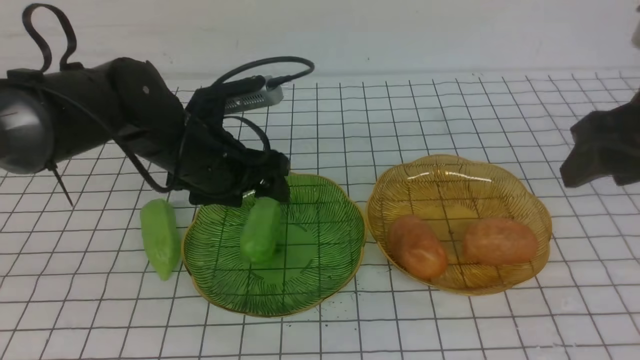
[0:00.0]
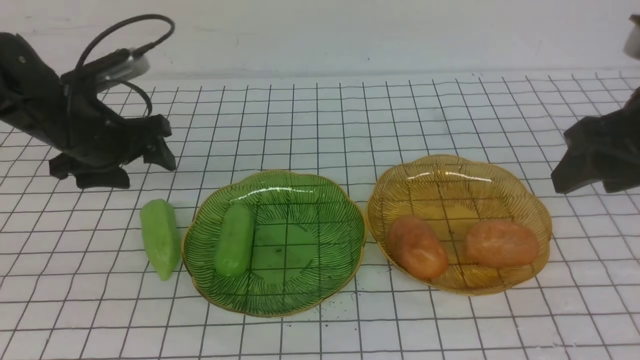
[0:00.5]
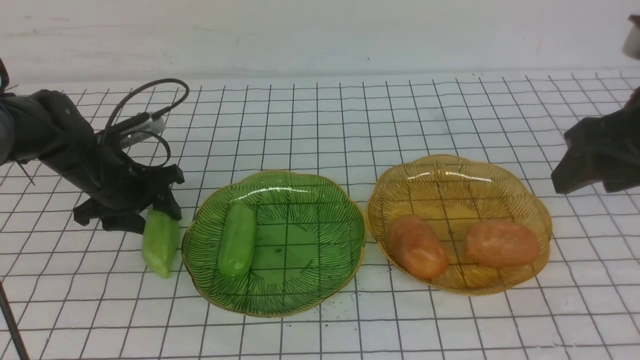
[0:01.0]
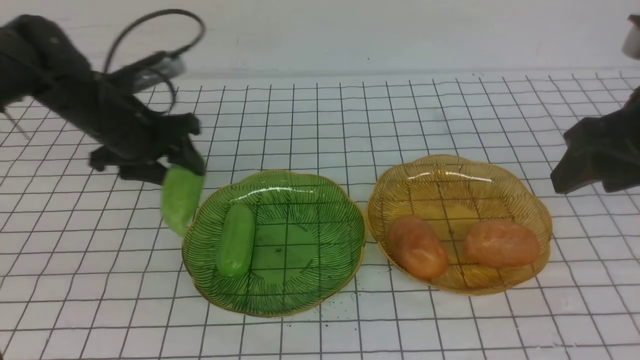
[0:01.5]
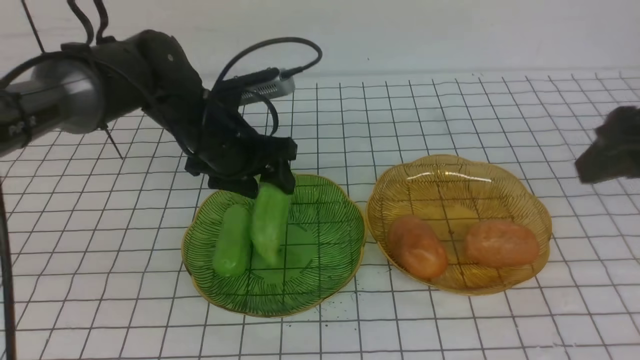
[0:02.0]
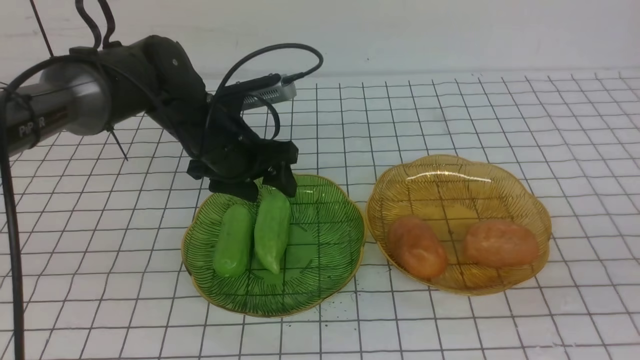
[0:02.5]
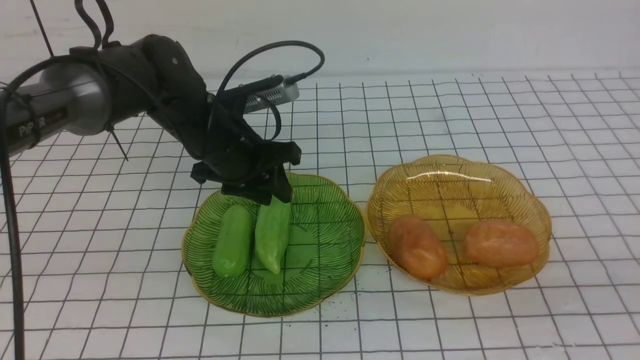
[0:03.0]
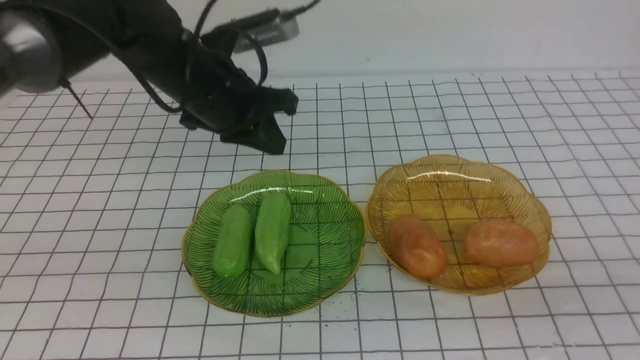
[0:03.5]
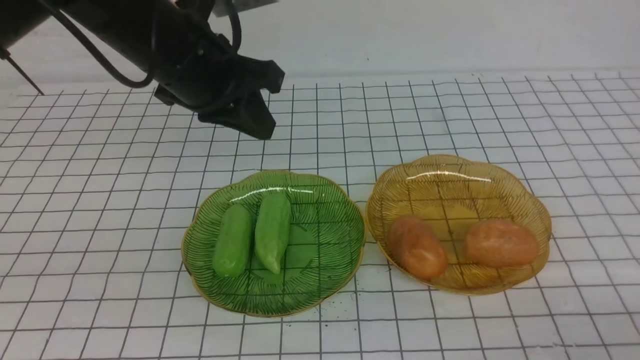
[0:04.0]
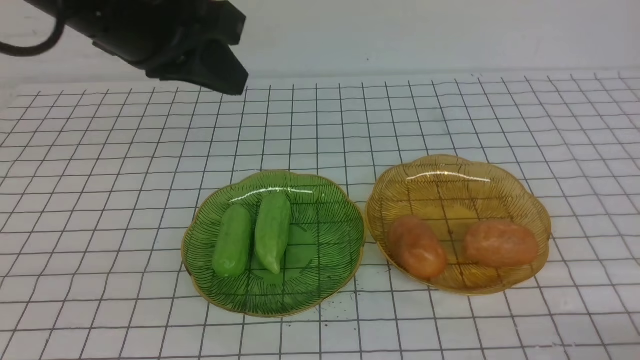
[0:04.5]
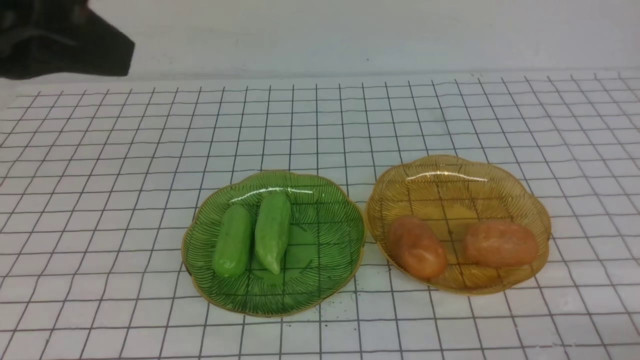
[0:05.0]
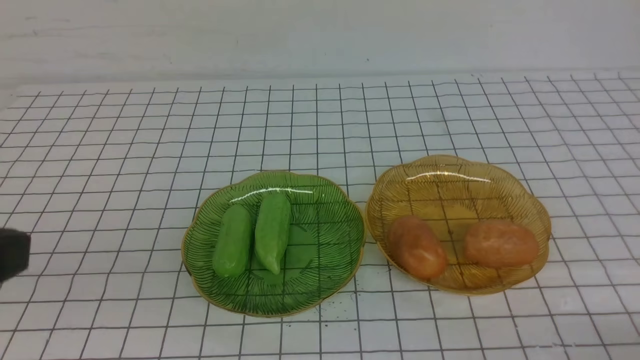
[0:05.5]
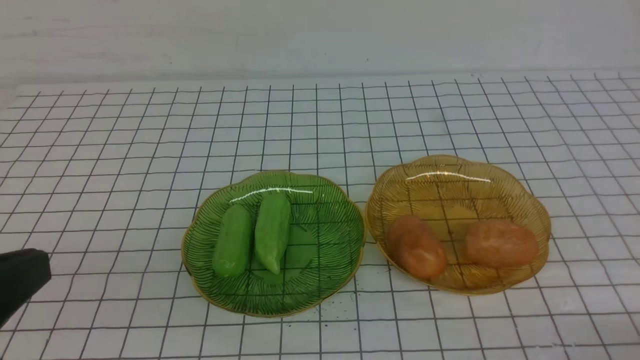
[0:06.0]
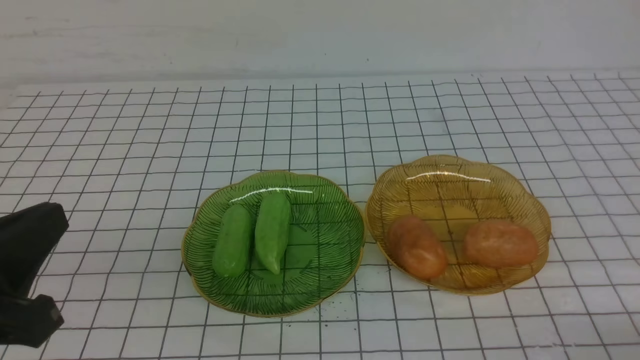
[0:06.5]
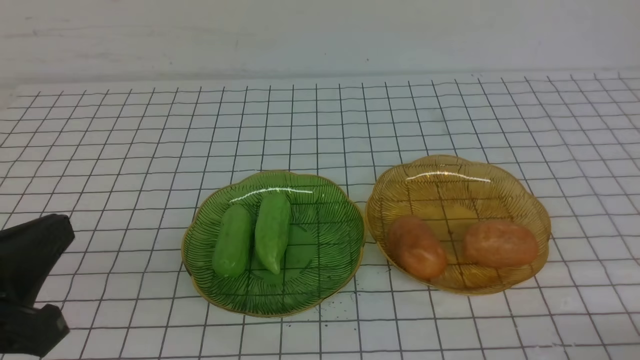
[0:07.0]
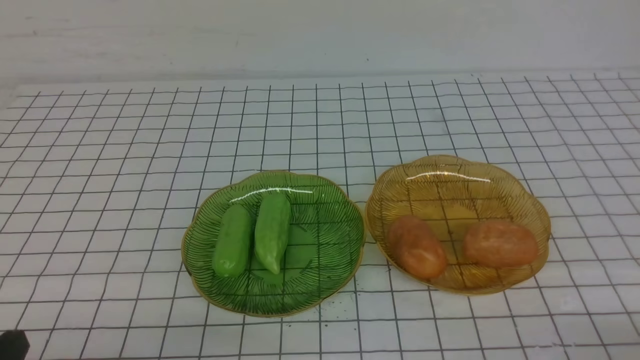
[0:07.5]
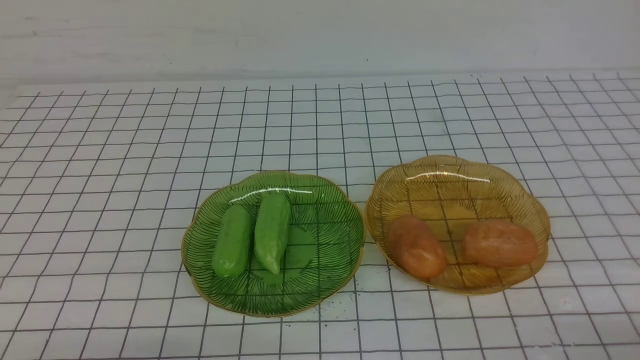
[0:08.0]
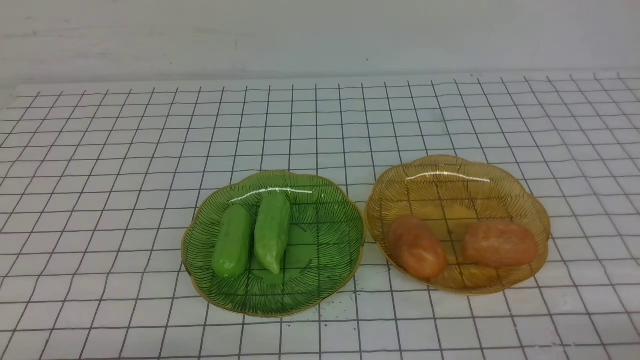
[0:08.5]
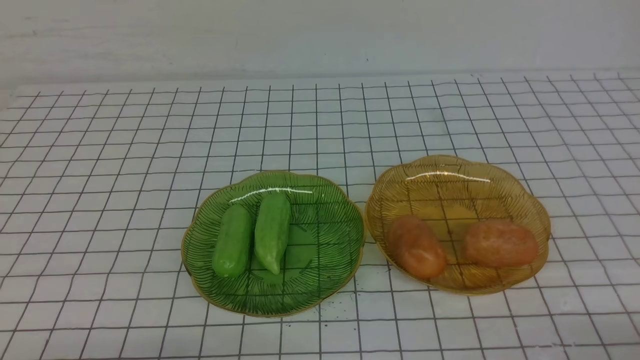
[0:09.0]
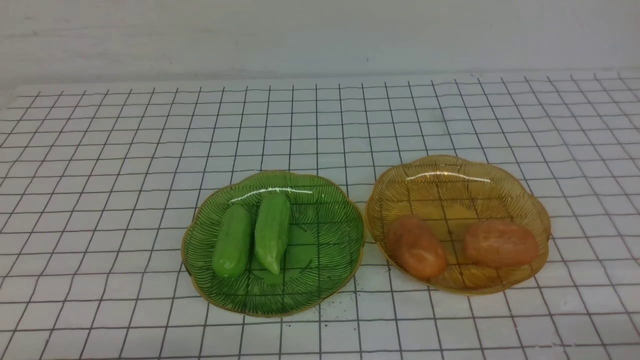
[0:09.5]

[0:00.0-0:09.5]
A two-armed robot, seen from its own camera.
Step, 0:00.0 to 0:02.0: use the left arm to grab a chayote and put it into the left plate.
0:00.0 to 0:02.0: The right gripper ends up about 5 cm from where it was. Meanwhile the left gripper travels to the left and back again, some 10 cm each way.
0:02.0 to 0:04.0: The right gripper goes roughly 25 cm downward and backward, and closes up. The left gripper is displaced upward by roughly 15 cm, and closes.
0:04.0 to 0:05.5: The left gripper is displaced backward by about 25 cm.
0:05.5 to 0:07.5: The left gripper is displaced downward by some 20 cm.

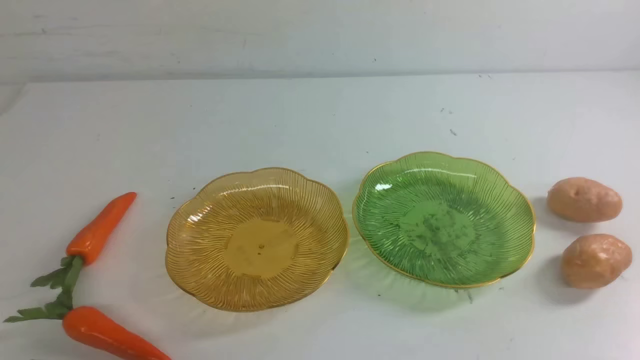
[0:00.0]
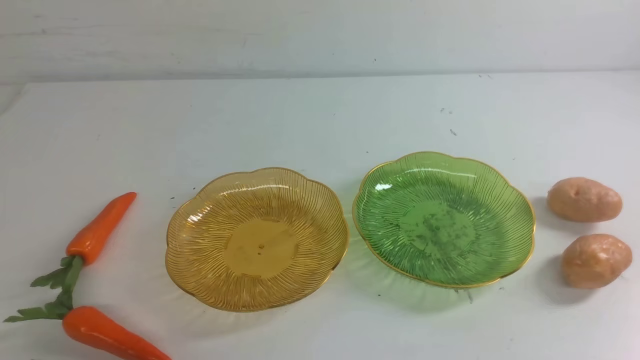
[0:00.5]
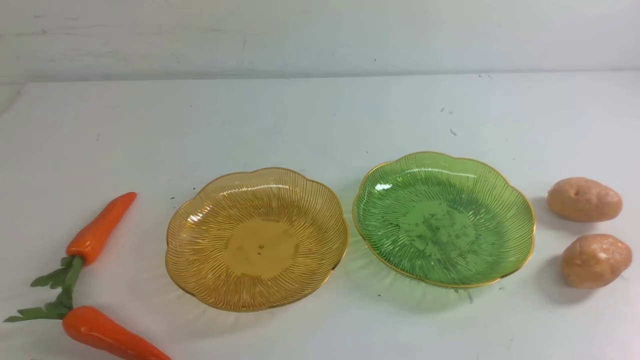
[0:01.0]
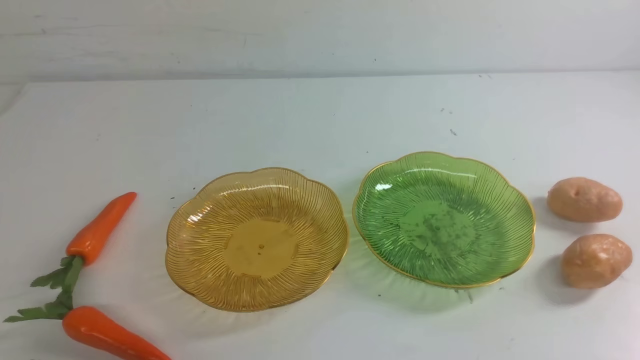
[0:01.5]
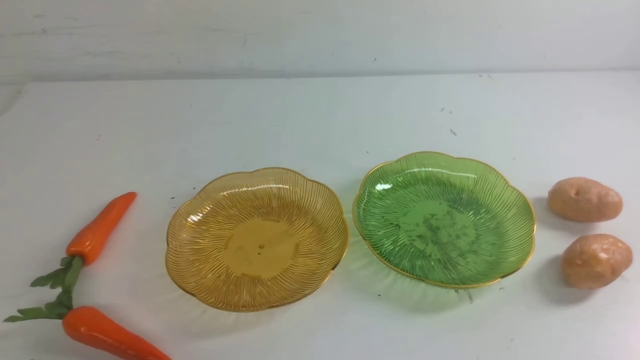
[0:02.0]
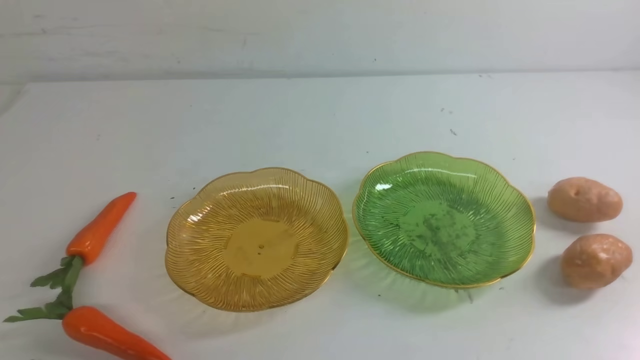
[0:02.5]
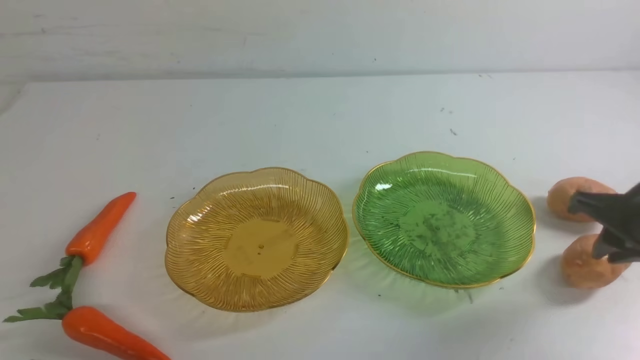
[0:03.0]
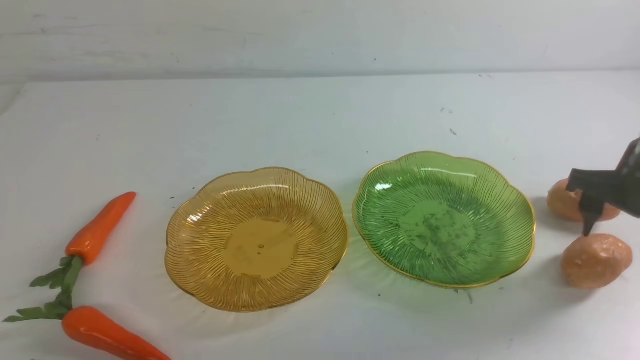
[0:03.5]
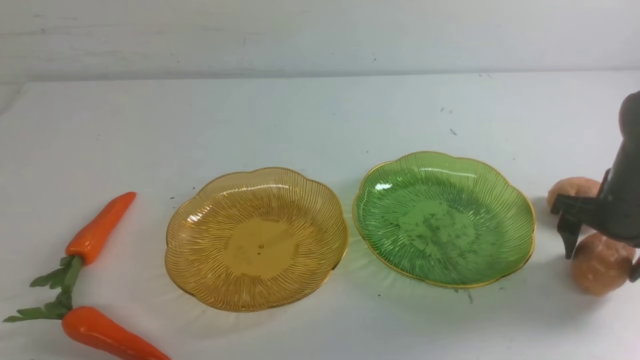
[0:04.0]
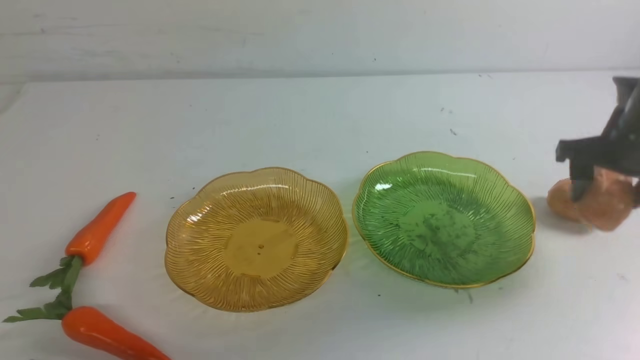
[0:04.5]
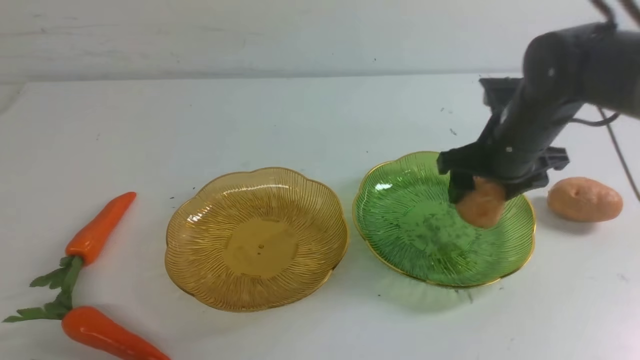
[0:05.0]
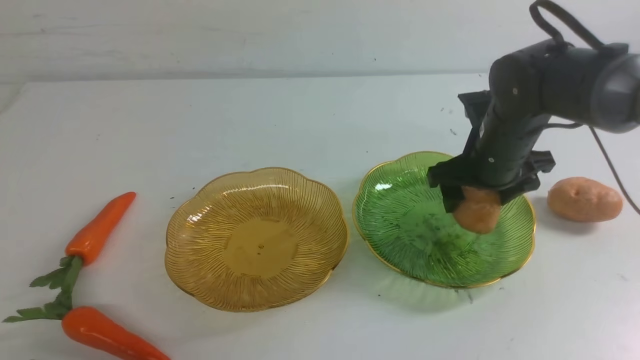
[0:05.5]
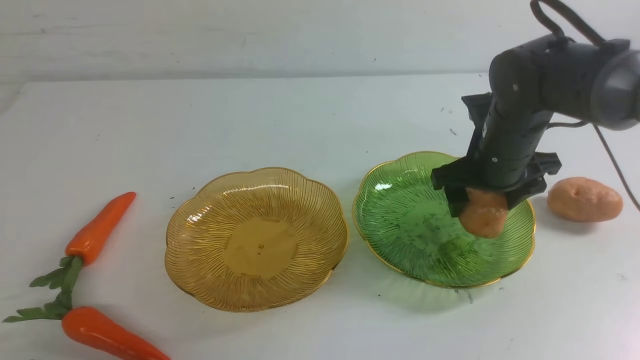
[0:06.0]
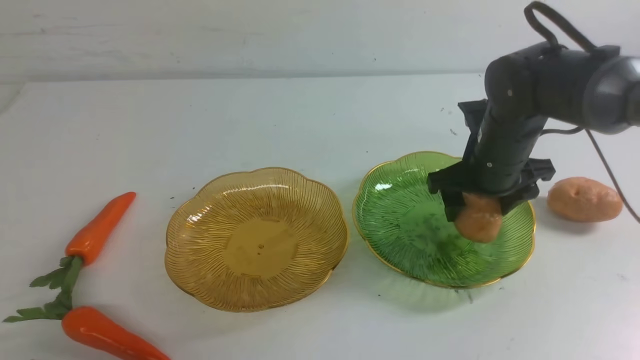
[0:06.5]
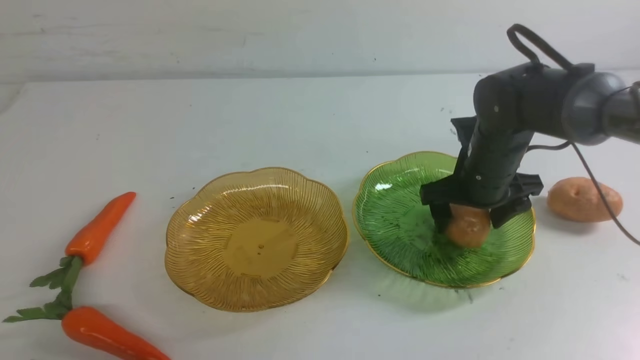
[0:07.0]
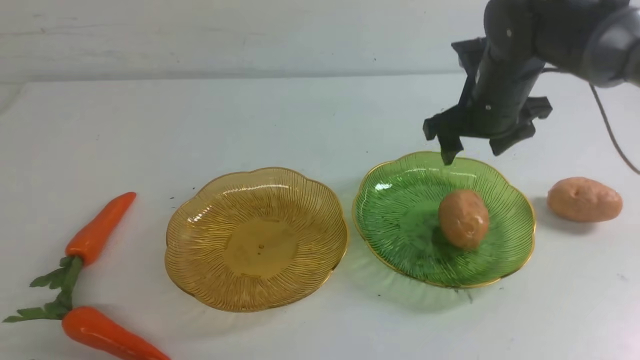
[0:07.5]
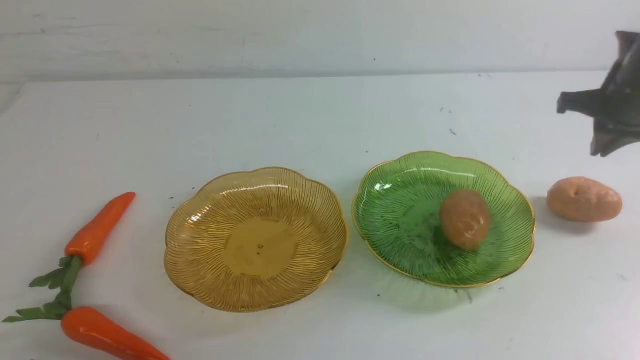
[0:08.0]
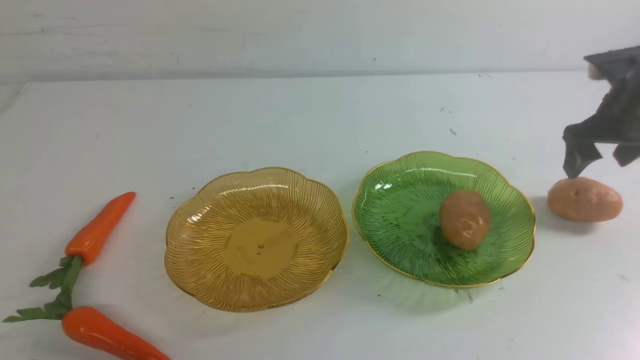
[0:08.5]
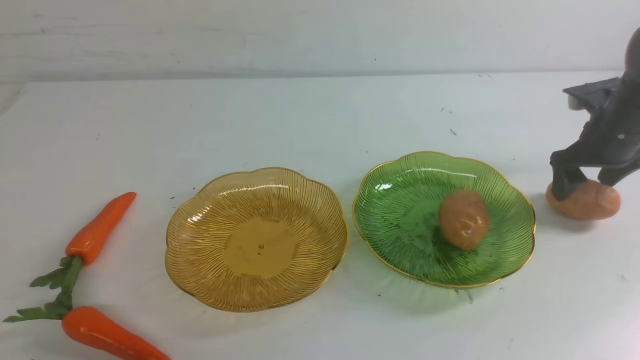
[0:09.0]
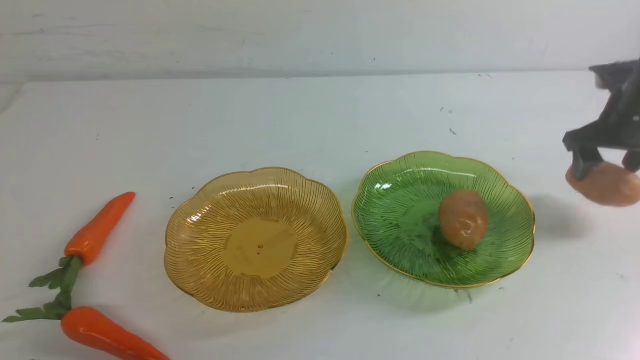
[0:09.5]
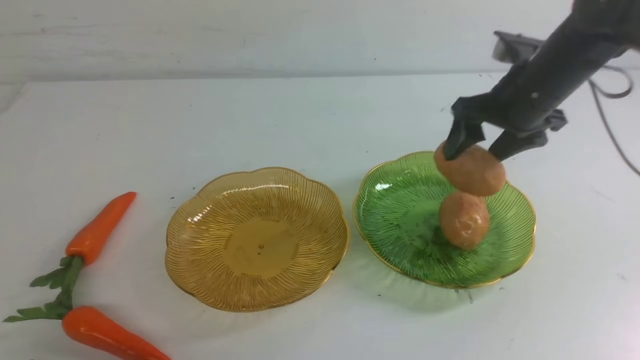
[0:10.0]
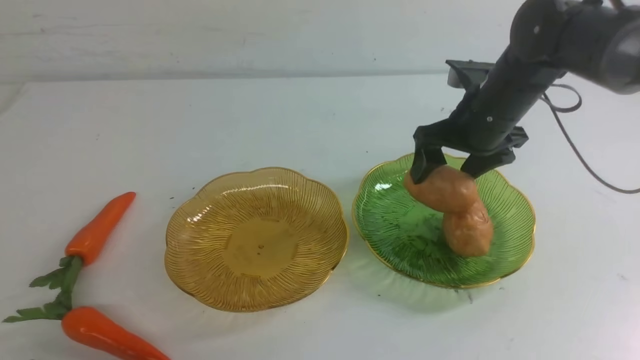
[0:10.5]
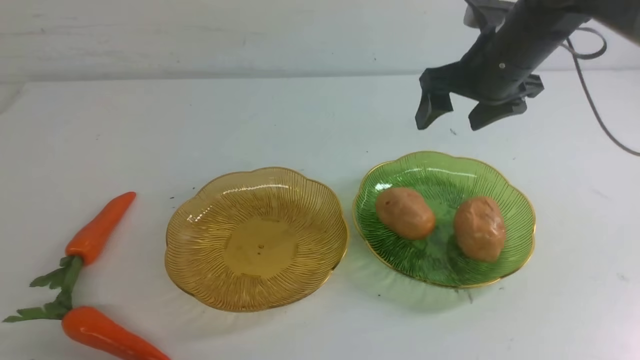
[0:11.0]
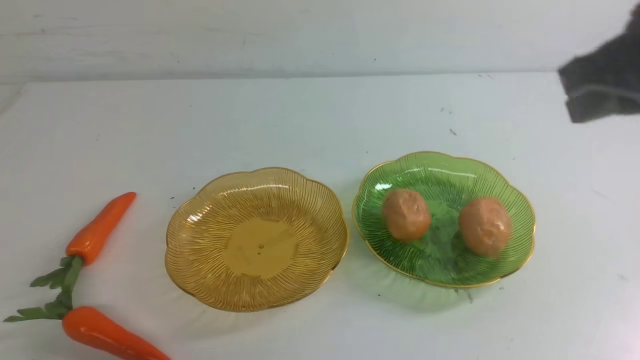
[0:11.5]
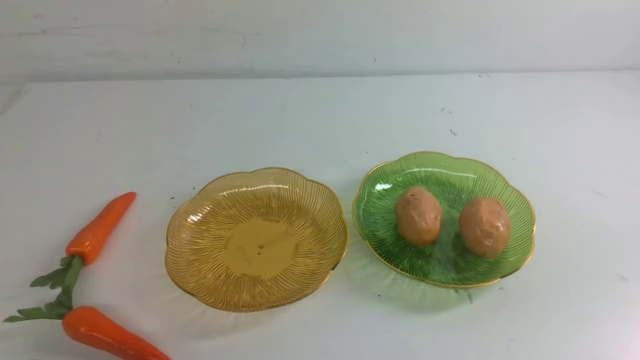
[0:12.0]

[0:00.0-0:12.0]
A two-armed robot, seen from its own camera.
Step, 0:00.0 to 0:07.5: Grab a potato with your right arm and put it on the right plate.
Step, 0:08.0 to 0:10.5: Grab a potato with your right arm and put it on the right plate.
0:02.0 to 0:04.0: The right gripper heads forward, covering about 30 cm, and opens its fingers.
0:04.0 to 0:06.0: The right gripper is displaced to the left by about 15 cm.
0:06.0 to 0:08.0: The right gripper travels to the right by approximately 15 cm, and closes, then opens again.
0:08.0 to 0:10.0: The right gripper moves to the left, some 15 cm.
0:10.0 to 0:12.0: The right gripper heads backward, covering approximately 35 cm, and closes its fingers.
